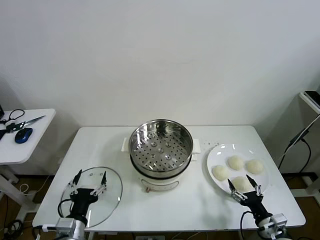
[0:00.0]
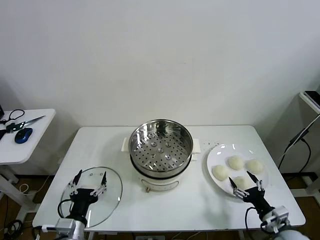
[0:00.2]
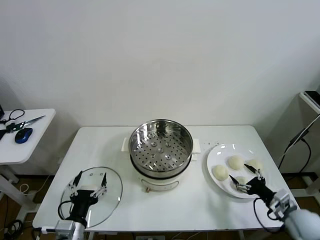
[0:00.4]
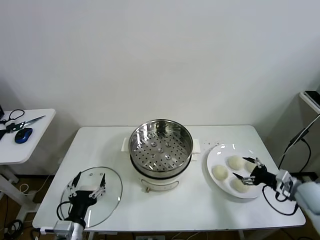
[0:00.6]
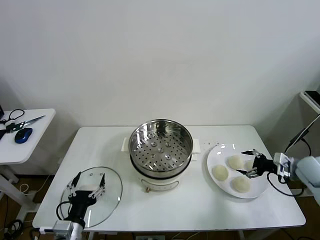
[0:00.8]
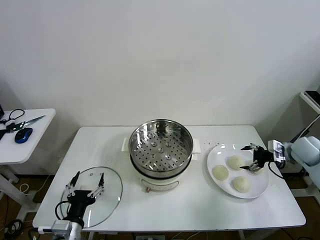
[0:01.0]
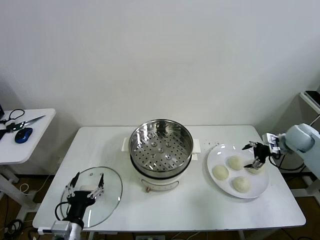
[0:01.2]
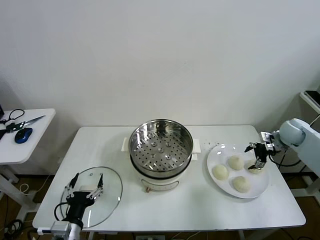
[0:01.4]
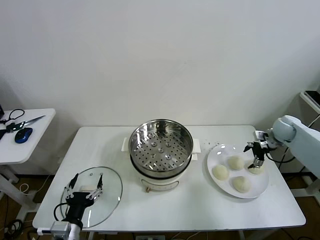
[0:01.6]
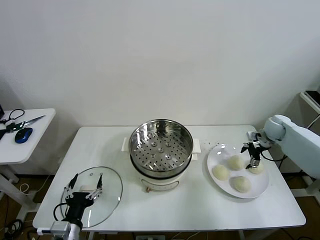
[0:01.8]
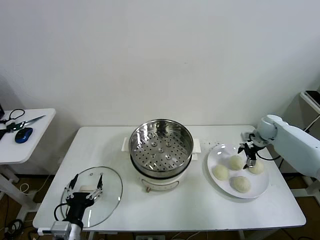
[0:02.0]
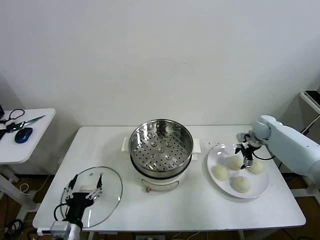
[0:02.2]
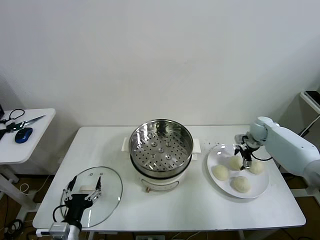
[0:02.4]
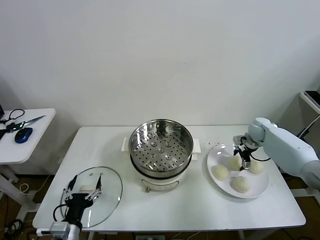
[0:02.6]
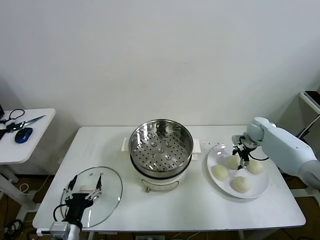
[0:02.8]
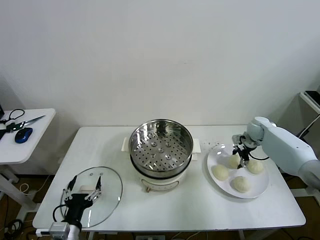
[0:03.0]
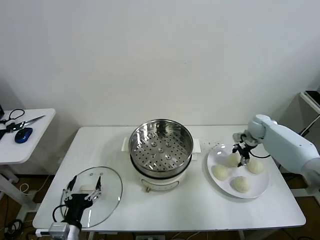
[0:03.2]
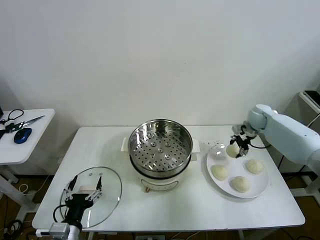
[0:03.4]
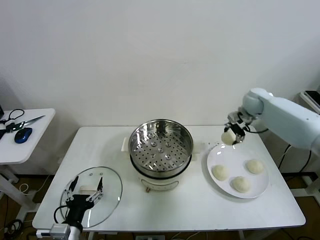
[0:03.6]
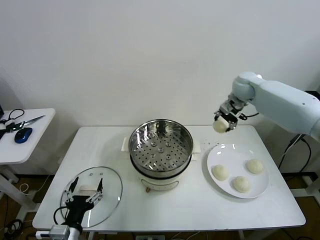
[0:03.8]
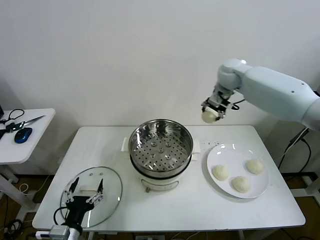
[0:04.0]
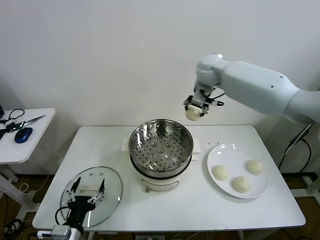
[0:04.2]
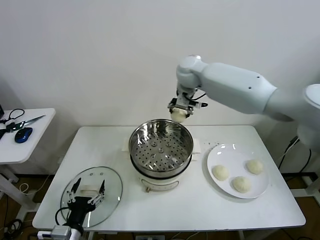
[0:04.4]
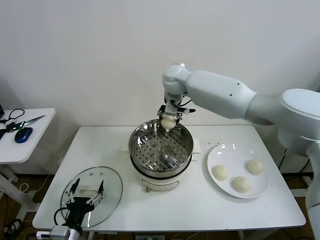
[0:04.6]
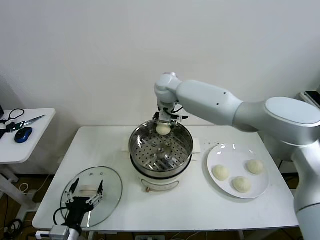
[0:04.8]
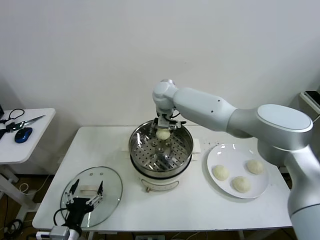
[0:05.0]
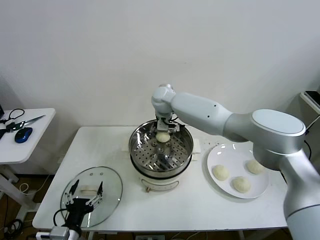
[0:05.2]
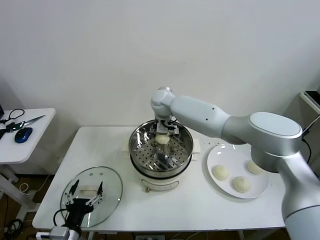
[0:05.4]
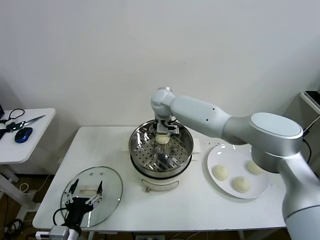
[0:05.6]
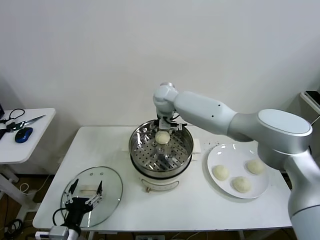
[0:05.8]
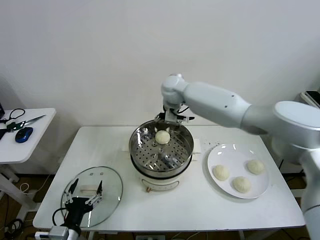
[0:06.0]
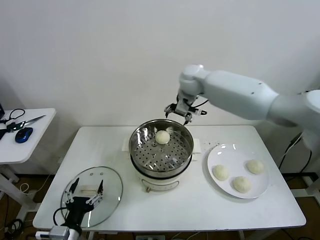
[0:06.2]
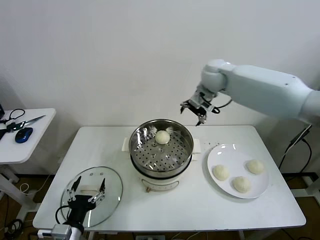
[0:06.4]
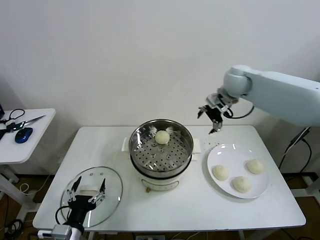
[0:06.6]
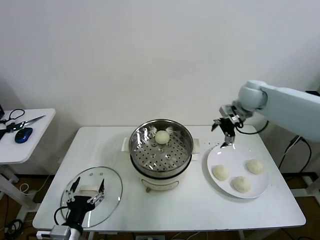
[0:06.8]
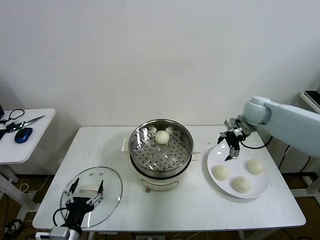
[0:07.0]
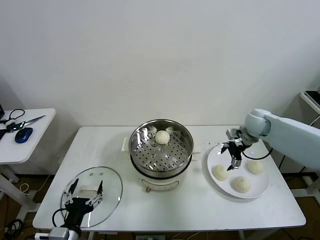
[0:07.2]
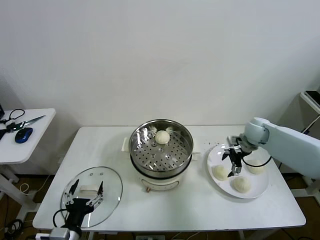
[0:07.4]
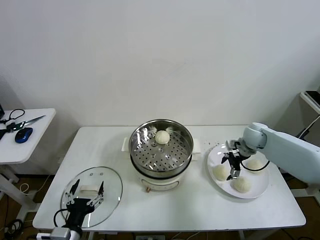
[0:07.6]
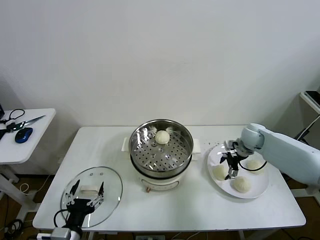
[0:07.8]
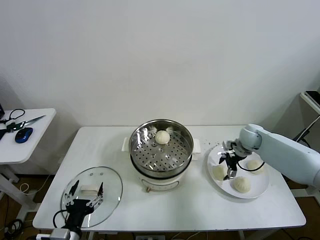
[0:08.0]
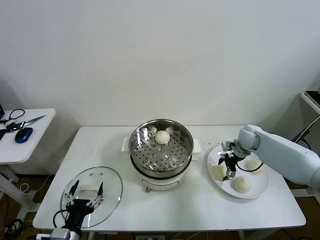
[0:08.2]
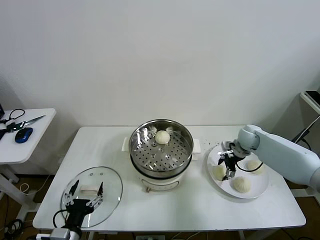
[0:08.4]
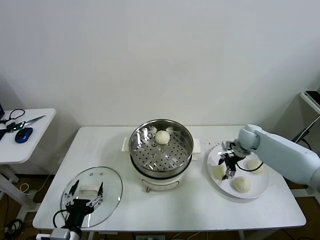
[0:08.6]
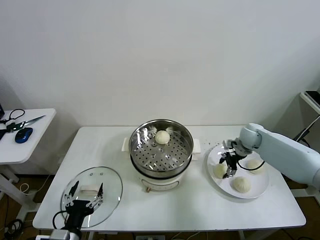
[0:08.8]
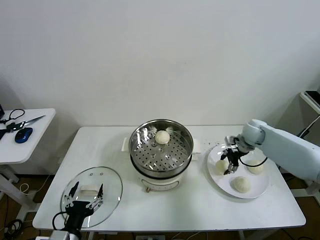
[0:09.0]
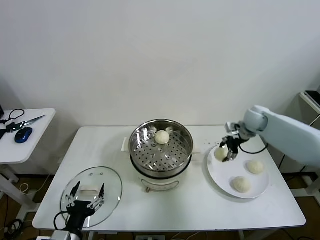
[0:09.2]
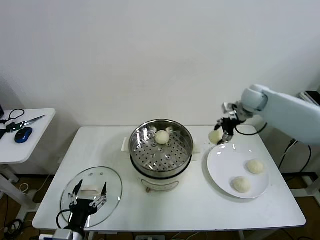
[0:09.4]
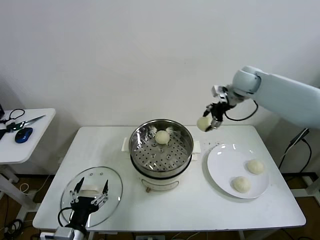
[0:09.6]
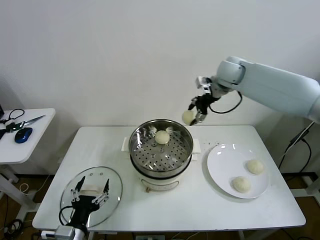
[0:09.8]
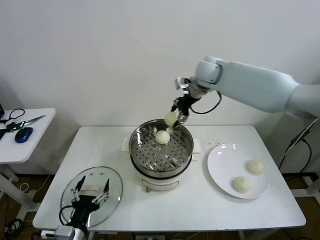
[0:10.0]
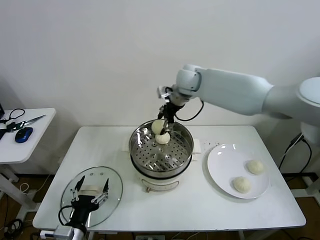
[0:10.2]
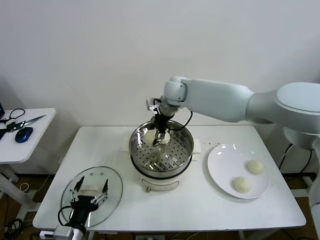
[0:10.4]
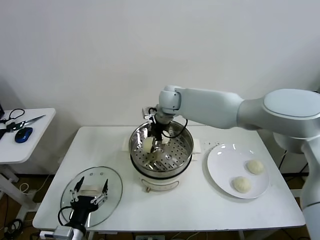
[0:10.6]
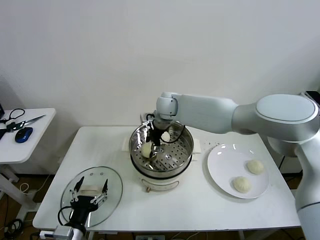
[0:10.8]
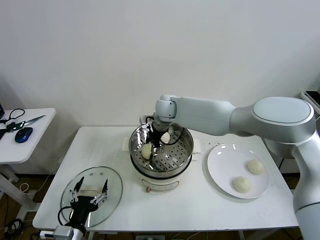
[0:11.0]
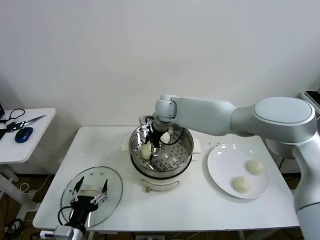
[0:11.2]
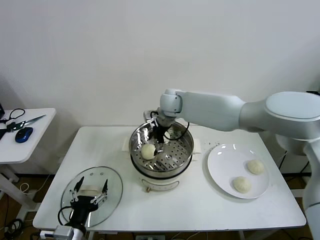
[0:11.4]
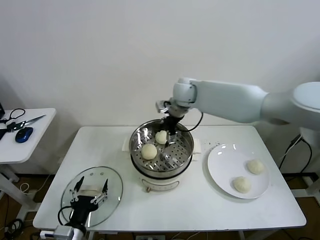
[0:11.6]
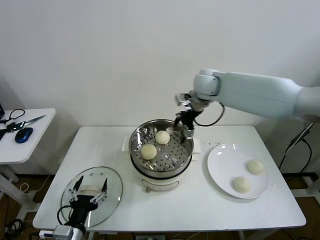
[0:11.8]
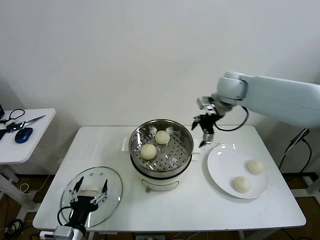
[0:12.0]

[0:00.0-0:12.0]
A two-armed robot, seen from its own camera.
Task of the whole recording: take steamed baozi put them in steamer then cover it.
Step, 0.0 to 2.8 s: Grasp the baozi in the plate with right gripper.
Step, 3.0 to 5.6 s: Place the baozi on the steamer with right gripper.
Step, 5.8 to 8.6 s: Grasp the baozi in the plate with right gripper.
Step, 8.8 to 11.2 s: Place the baozi on the steamer with right gripper.
1.6 to 3.0 s: The right gripper heads to the left, covering roughly 5 cm, and closes up.
3.0 to 4.4 s: The right gripper moves to the left and upward, about 40 cm.
4.4 to 6.0 s: The right gripper reaches roughly 10 cm downward, then returns, and opens its fingers.
6.0 to 7.6 s: The right gripper travels to the right and downward by approximately 35 cm.
7.6 to 9.0 s: The right gripper closes up.
9.0 to 10.4 s: The right gripper moves to the left and upward, some 35 cm.
10.4 to 12.0 s: The right gripper shifts about 20 cm to the right, and opens up.

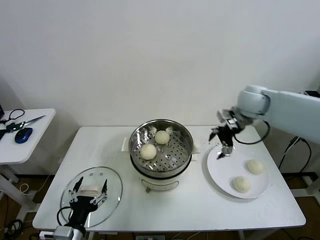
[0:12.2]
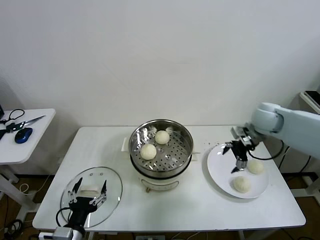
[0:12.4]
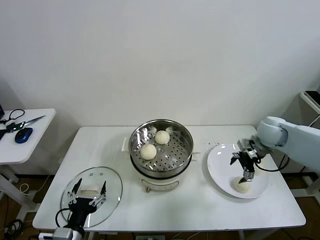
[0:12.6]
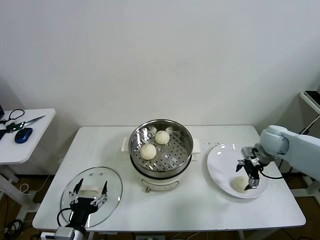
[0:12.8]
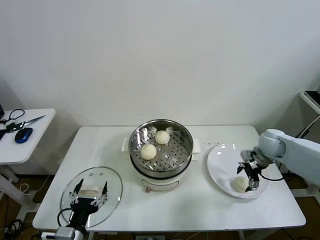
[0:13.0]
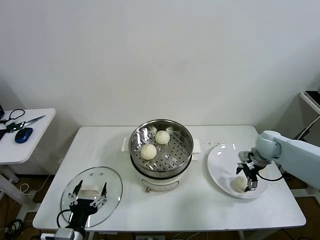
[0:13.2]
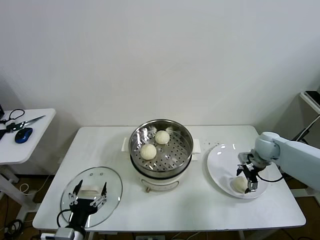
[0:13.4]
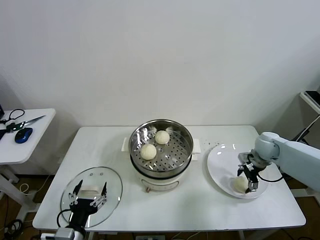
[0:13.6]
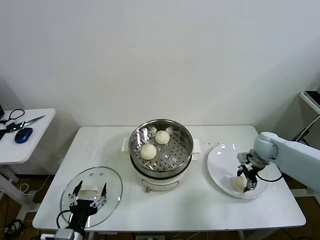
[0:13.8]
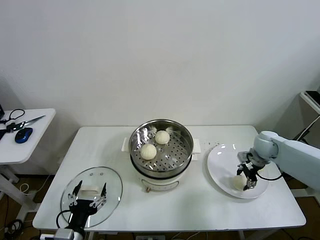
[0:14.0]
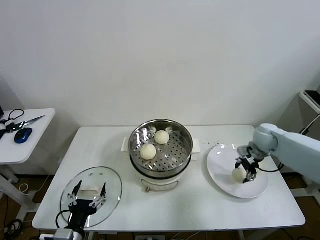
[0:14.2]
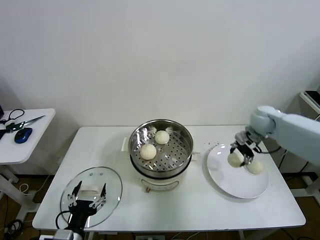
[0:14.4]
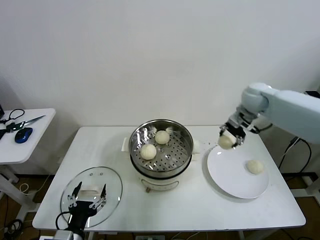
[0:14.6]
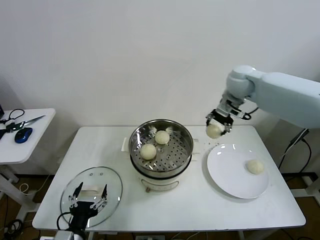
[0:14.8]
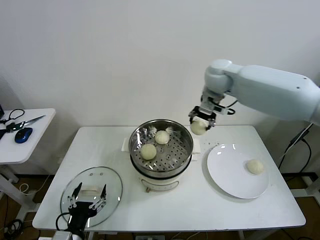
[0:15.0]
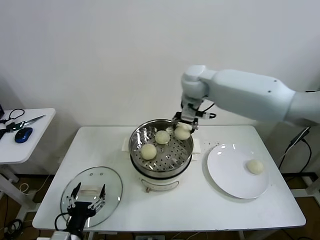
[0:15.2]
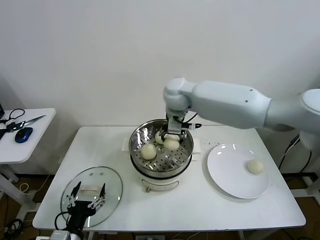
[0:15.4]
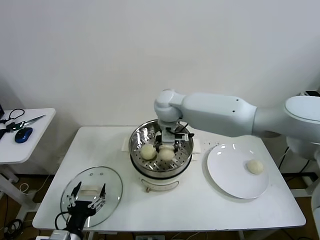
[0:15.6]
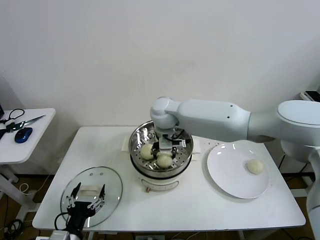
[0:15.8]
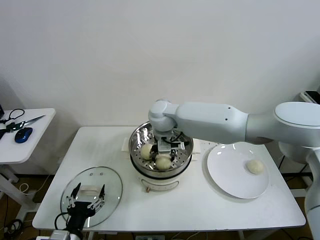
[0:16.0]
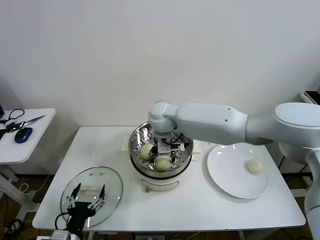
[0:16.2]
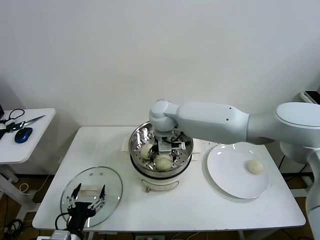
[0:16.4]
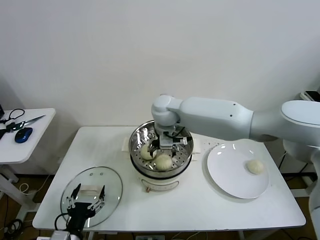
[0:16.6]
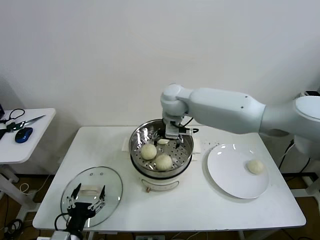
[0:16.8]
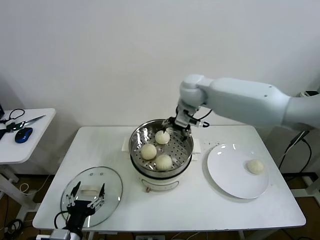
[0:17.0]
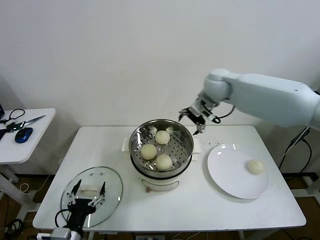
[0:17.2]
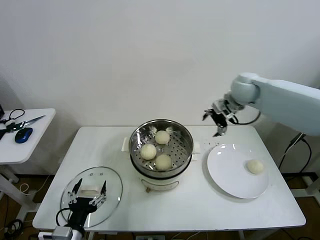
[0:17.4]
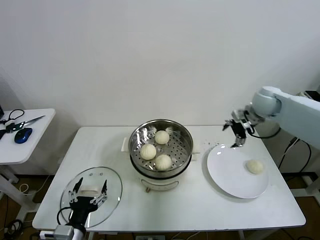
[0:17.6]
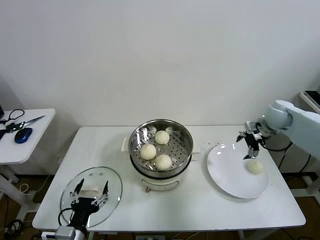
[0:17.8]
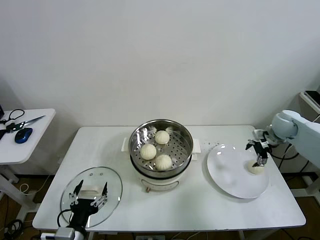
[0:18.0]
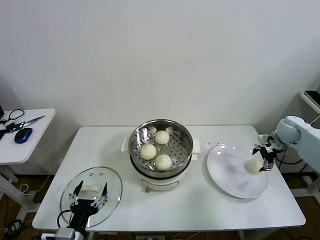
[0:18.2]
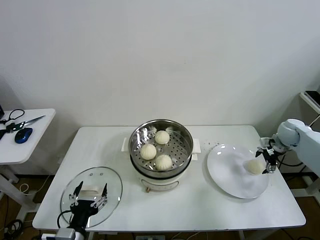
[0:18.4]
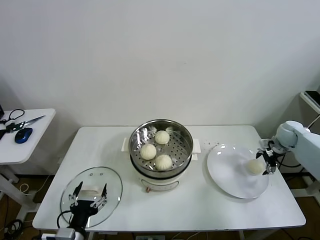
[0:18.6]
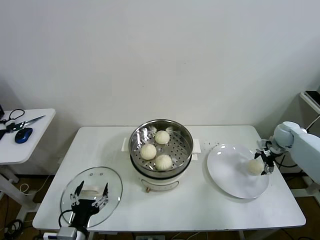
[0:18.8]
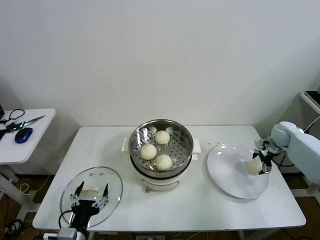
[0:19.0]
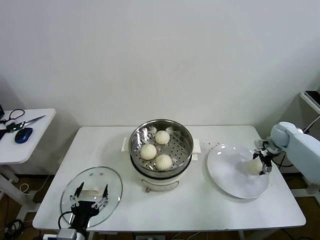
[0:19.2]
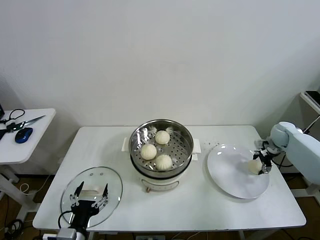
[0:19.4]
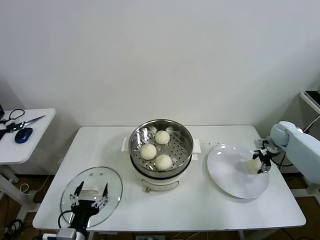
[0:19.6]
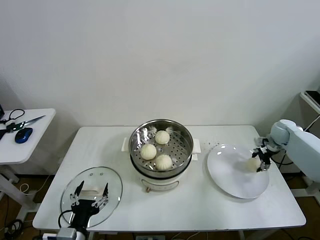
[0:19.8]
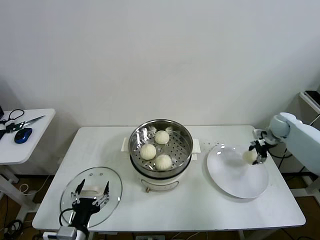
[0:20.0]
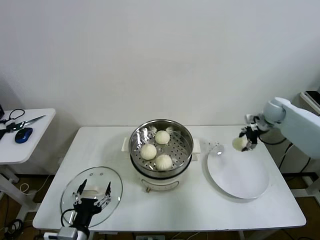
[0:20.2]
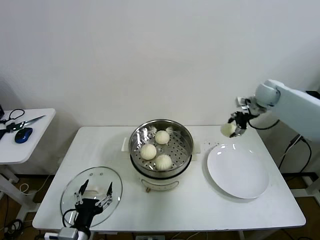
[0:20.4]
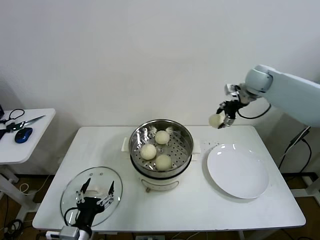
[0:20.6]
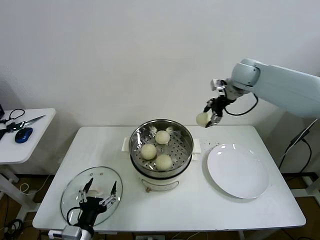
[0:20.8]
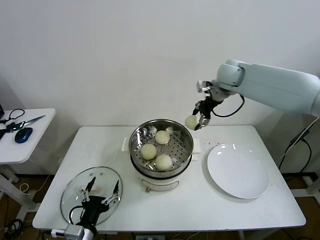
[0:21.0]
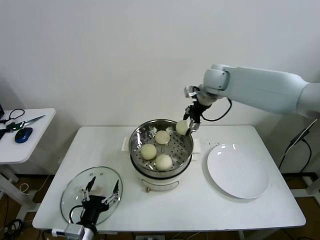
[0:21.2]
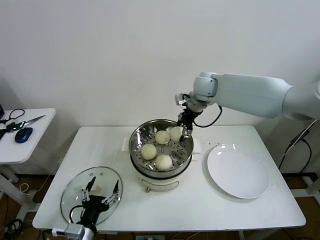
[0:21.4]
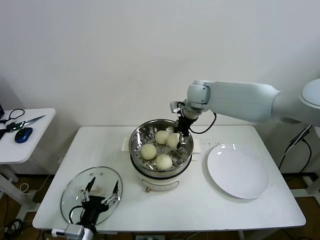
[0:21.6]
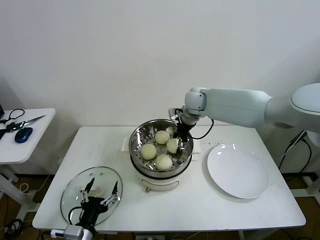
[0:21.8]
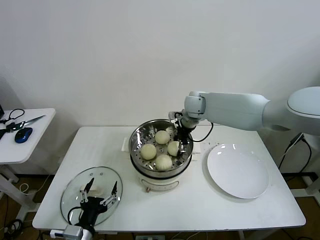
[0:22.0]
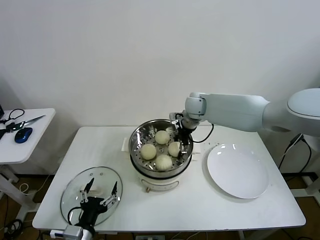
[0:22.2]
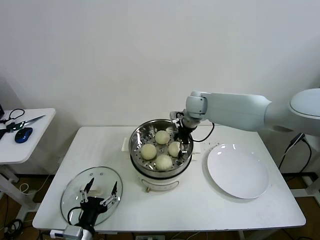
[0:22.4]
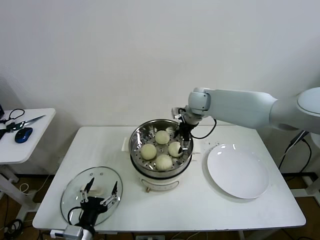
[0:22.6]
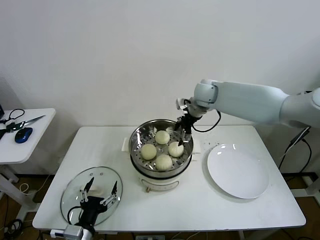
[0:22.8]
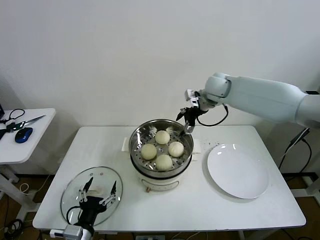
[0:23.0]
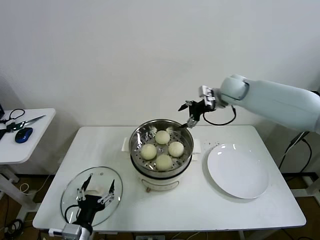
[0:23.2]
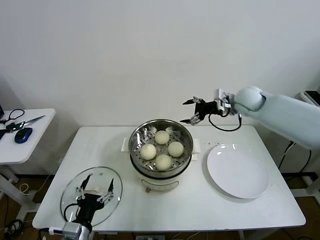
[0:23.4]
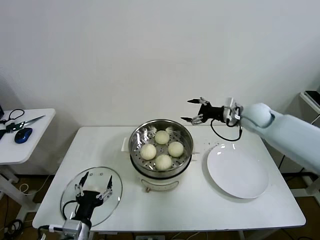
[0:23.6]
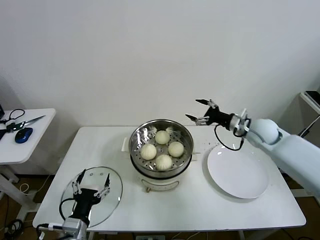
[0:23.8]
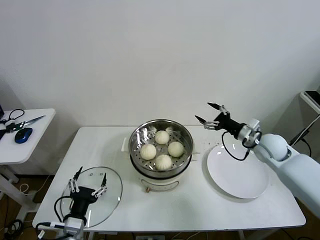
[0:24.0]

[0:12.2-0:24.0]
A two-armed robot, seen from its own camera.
Task of the whole recording: take steamed baozi put them in steamer then cover it.
Step, 12.2 to 13.8 s: Grasp the baozi in the plate with right gripper.
Step, 14.0 to 16.4 s: Place the baozi on the steamer with right gripper.
Step, 16.6 to 19.4 s: Grasp the baozi in the plate with right gripper.
Step, 19.6 to 22.4 s: Place the baozi on the steamer with right gripper.
12.2 to 13.6 s: The right gripper moves downward and to the right, approximately 20 cm, and closes its fingers.
13.6 to 15.2 s: The right gripper moves to the left and upward, about 40 cm, and closes.
15.2 to 16.6 s: The right gripper shifts roughly 10 cm to the left and downward, and opens its fingers.
16.6 to 18.2 s: The right gripper moves to the right, about 50 cm.
18.2 to 19.6 s: The right gripper shifts about 5 cm downward, and closes.
19.6 to 21.0 s: The right gripper travels to the left and upward by about 35 cm.
21.0 to 22.6 s: The right gripper travels downward and to the left by about 10 cm, and opens its fingers.
22.6 to 24.0 s: The right gripper heads to the right, backward and downward, covering approximately 30 cm.
